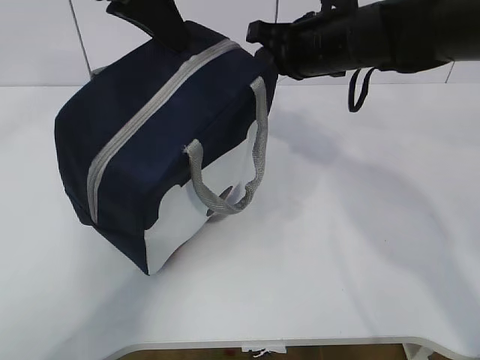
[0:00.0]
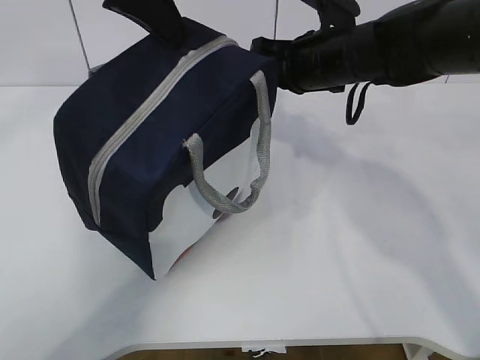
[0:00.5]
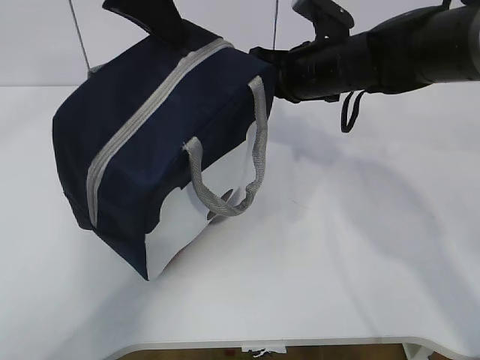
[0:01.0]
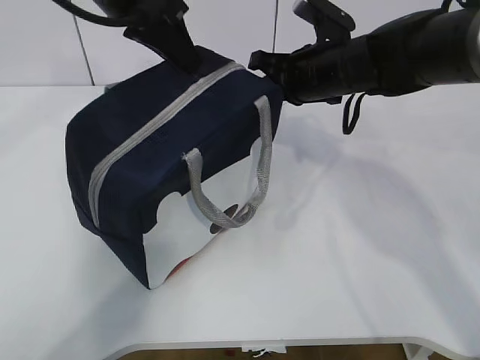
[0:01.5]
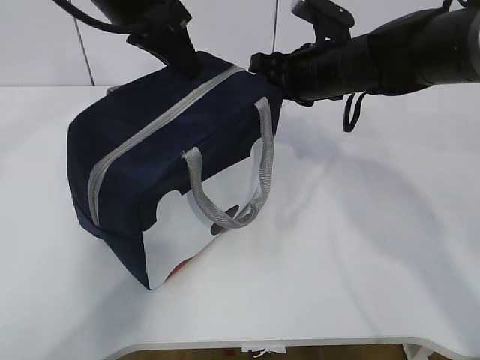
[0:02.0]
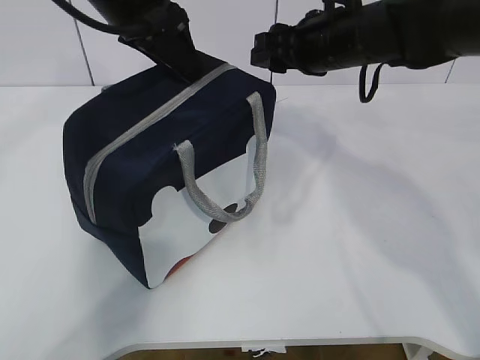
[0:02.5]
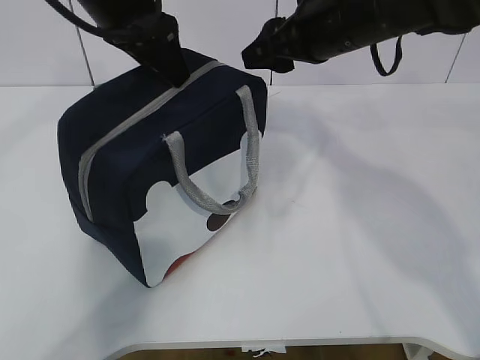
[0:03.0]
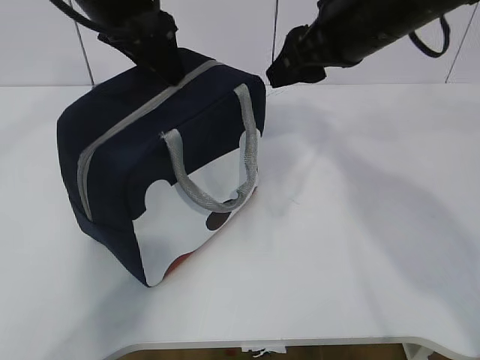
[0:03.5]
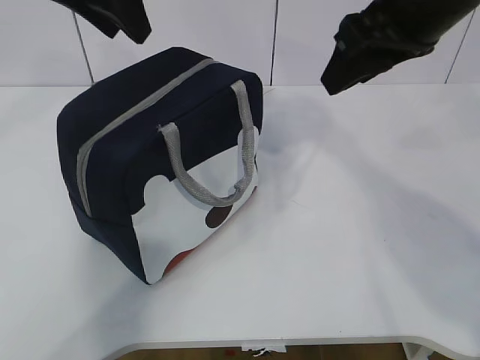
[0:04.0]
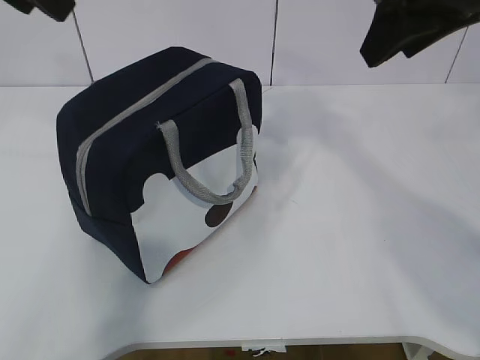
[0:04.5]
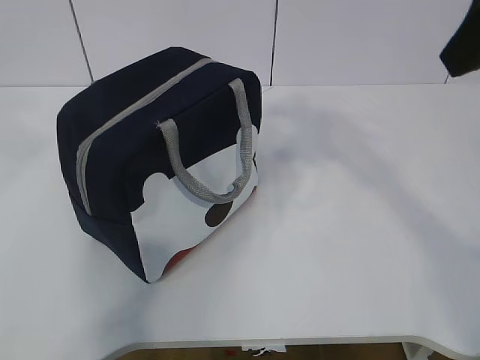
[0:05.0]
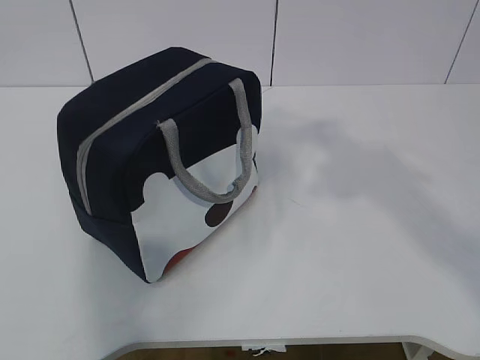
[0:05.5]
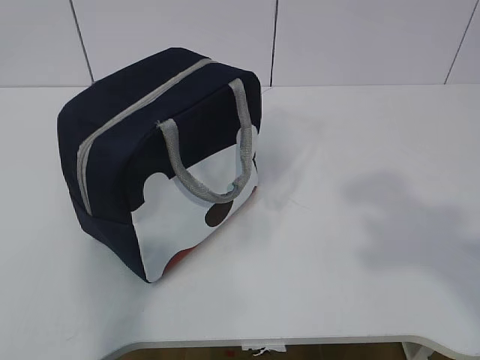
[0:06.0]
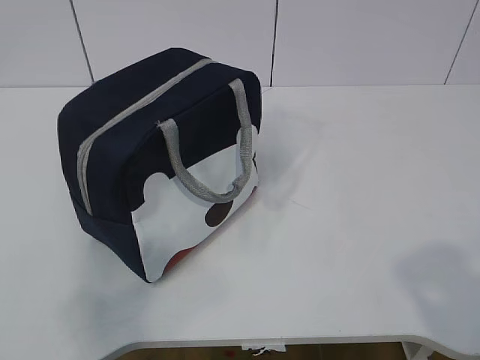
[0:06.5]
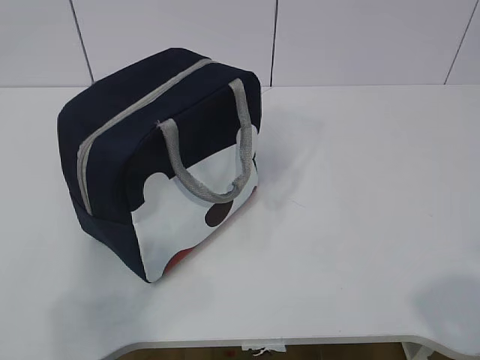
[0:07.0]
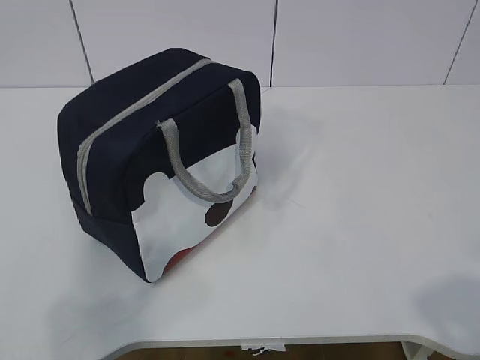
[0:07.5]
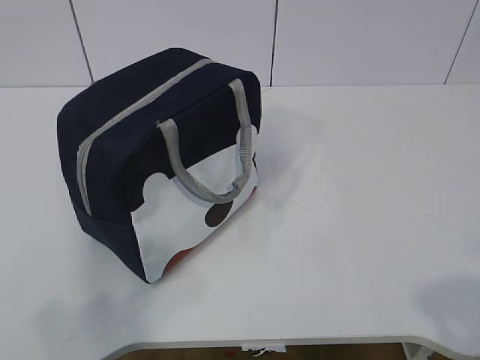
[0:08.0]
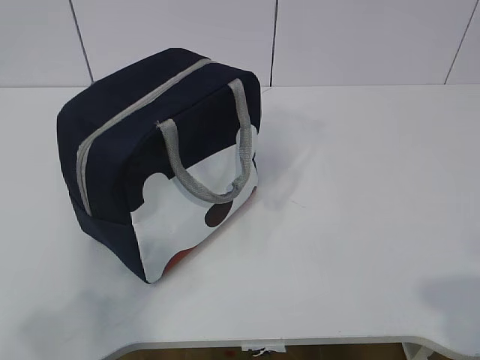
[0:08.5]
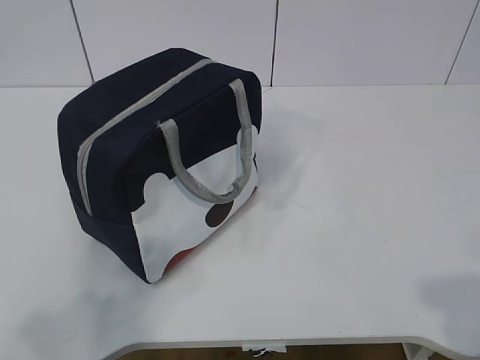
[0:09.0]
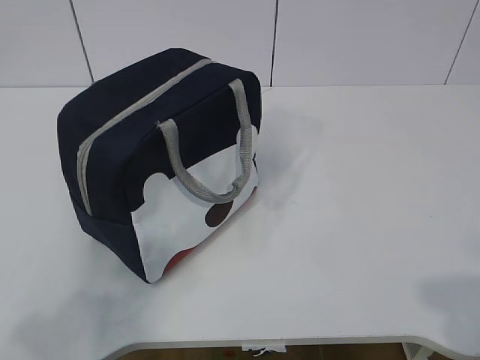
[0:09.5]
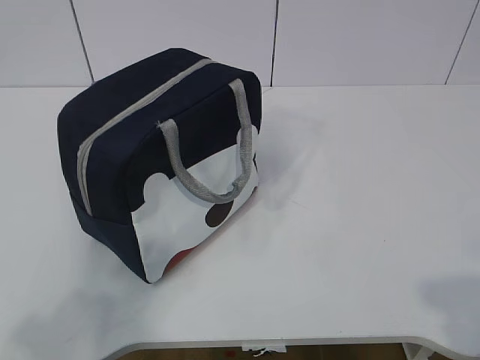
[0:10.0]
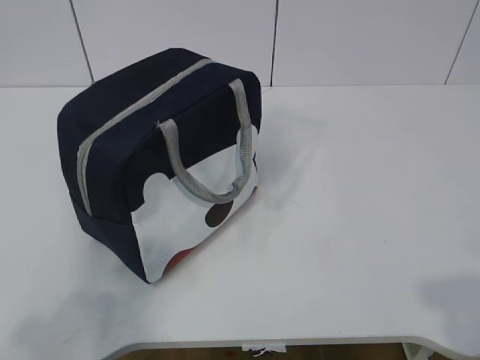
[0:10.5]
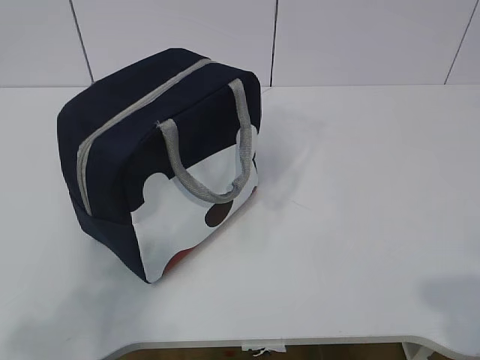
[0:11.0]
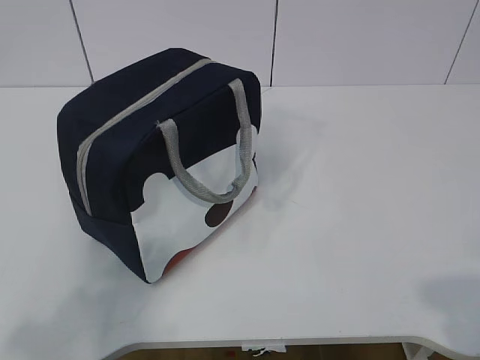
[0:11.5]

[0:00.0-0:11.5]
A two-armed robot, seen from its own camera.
0:00.0 to 0:02.0: The right gripper opens up.
0:02.0 to 0:04.0: The right gripper shifts about 15 cm upward and backward. The left gripper ends up roughly 5 cm from where it was, and opens its fingers.
0:04.0 to 0:06.0: The right gripper heads backward, covering approximately 30 cm. Meanwhile the left gripper moves backward and to the left, some 40 cm.
0:06.0 to 0:07.5: The right gripper moves downward, some 15 cm.

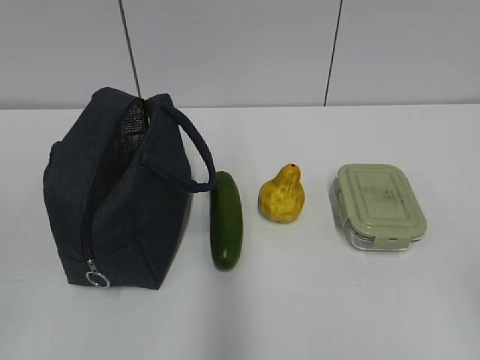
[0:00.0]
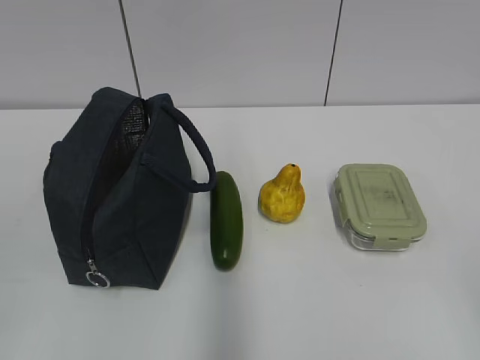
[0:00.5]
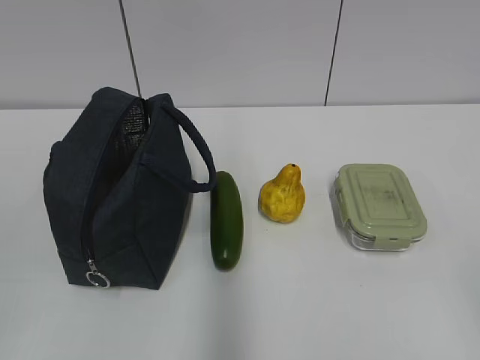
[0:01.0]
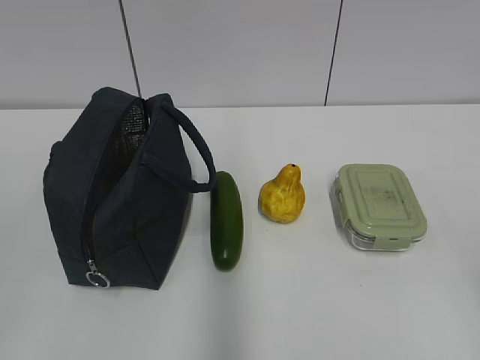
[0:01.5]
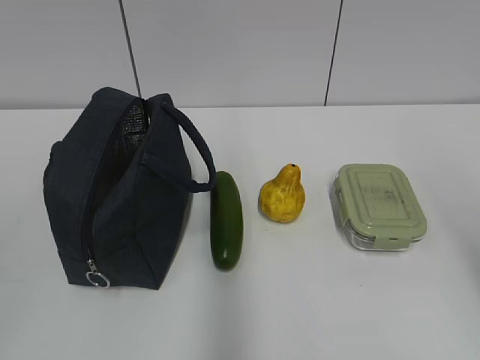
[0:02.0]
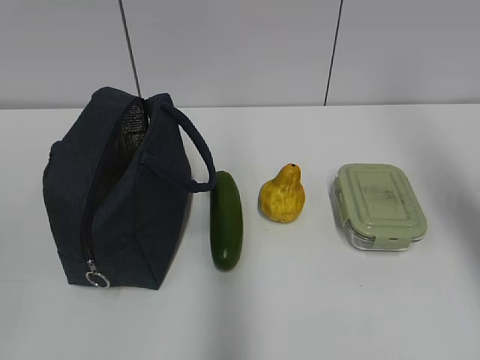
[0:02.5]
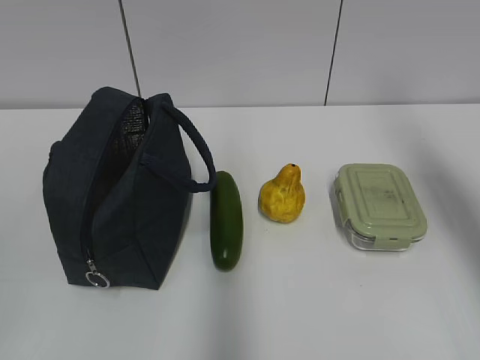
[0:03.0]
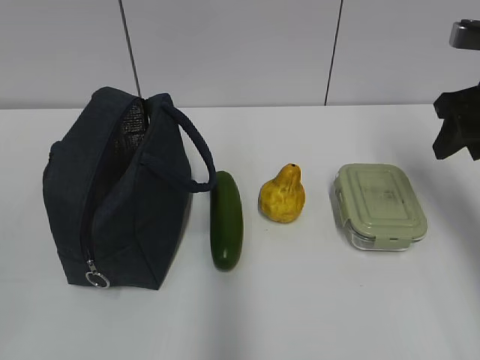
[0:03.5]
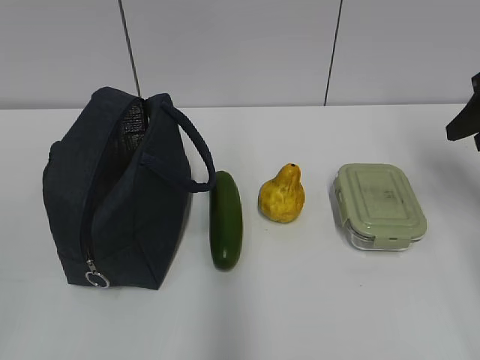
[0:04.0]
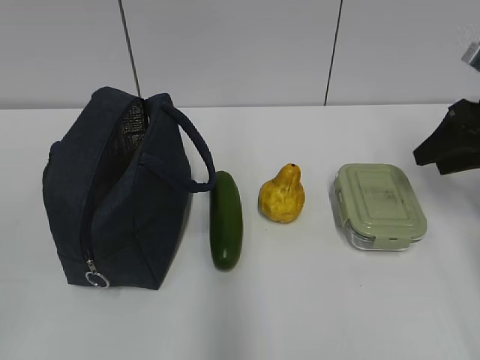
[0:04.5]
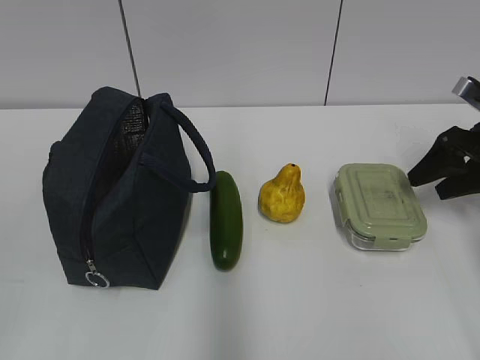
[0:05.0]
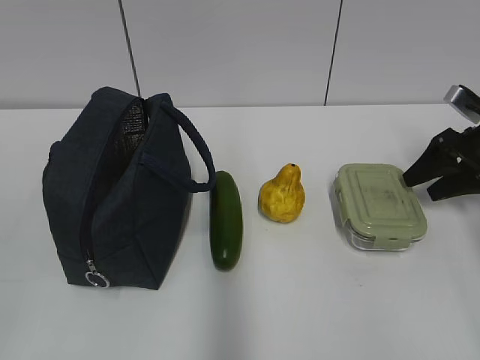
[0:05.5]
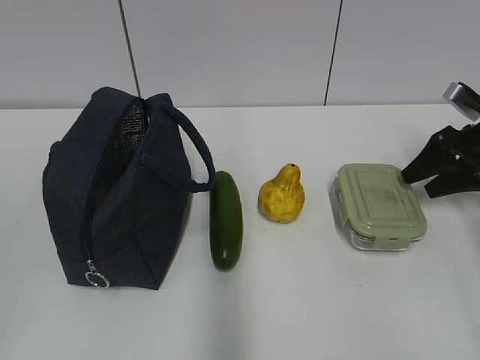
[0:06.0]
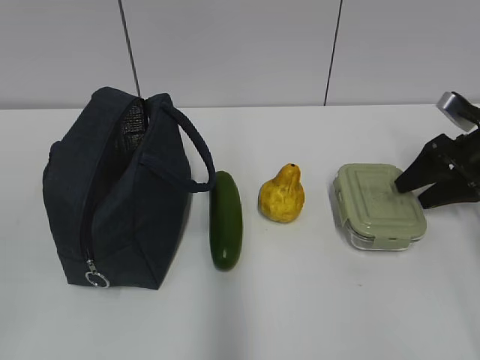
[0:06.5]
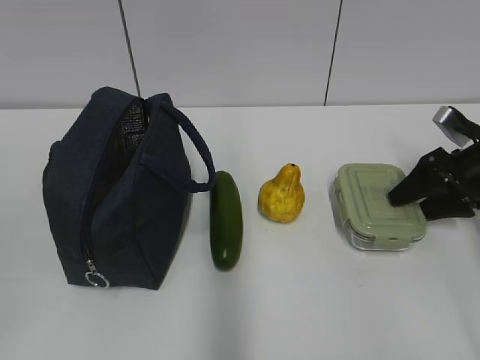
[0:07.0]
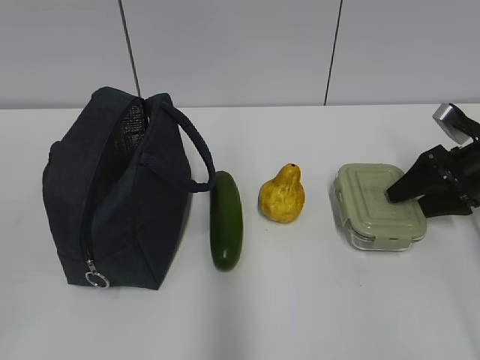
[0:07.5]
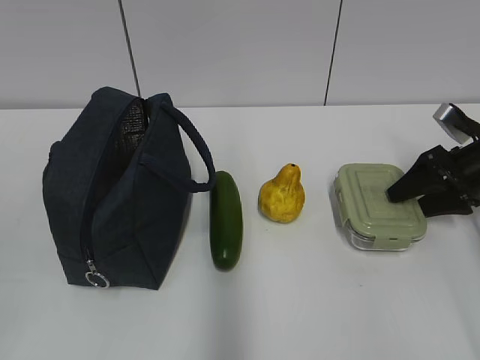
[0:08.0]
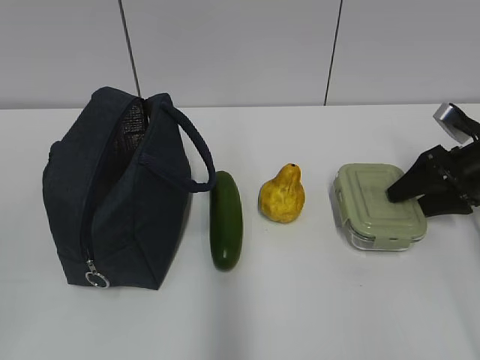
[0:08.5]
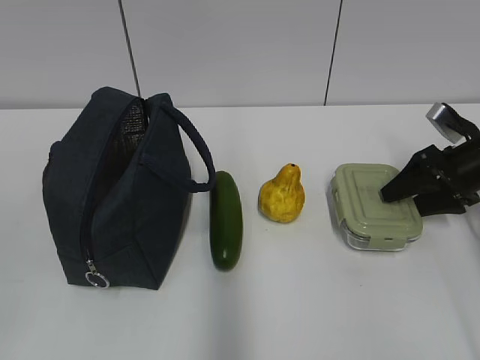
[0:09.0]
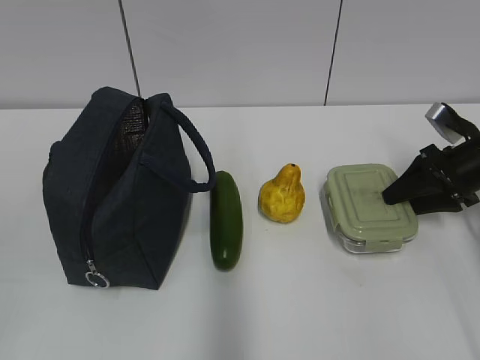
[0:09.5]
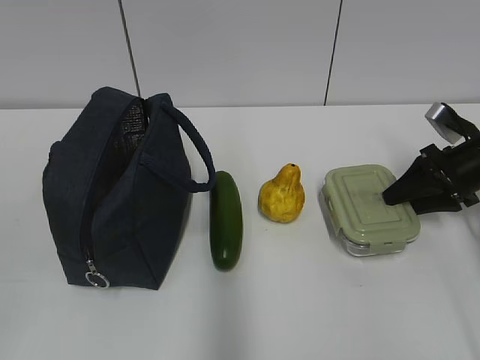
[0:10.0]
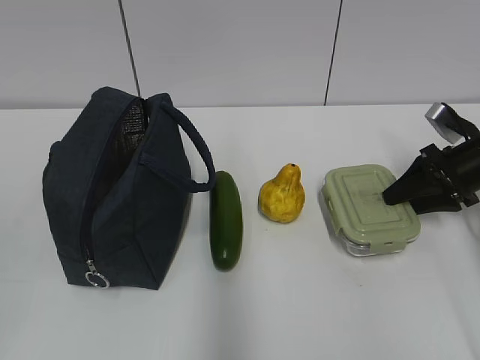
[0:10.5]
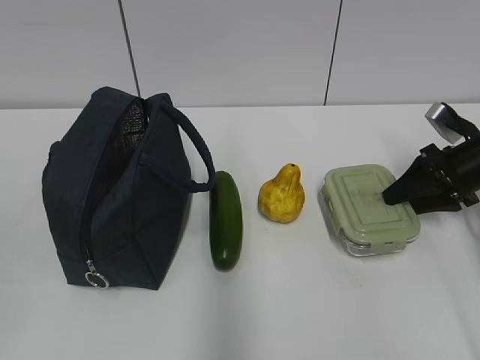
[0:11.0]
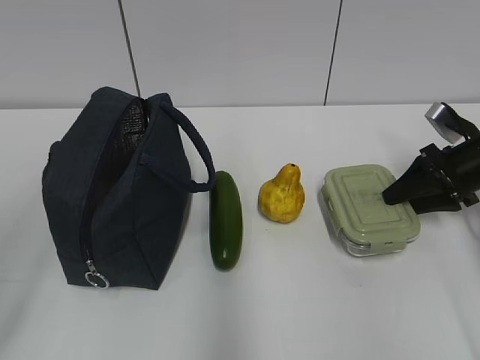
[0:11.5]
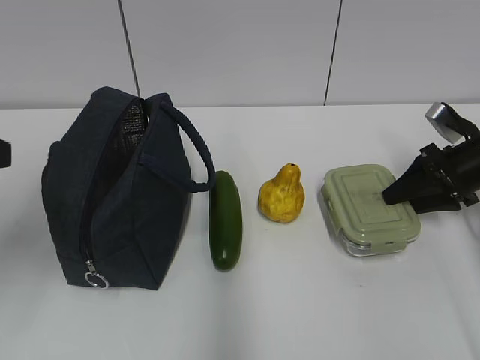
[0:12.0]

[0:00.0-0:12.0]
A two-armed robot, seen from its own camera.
Step, 0:00.0 to 0:11.0: Grab the lunch box with your right hand.
0:02.0 to 0:04.0: The right gripper travels forward by some 25 cm.
0:04.0 to 0:06.0: The right gripper shifts approximately 15 cm downward and forward.
0:06.0 to 0:08.0: The grippers make only small movements.
0:08.0 to 0:10.0: Both grippers stay about where they are.
0:10.0 to 0:12.0: The left gripper is displaced forward by roughly 20 cm.

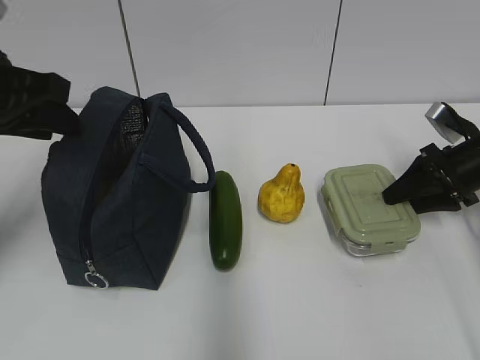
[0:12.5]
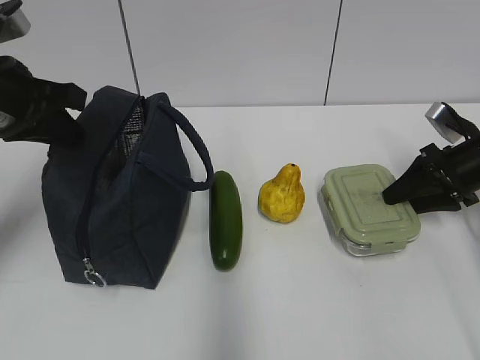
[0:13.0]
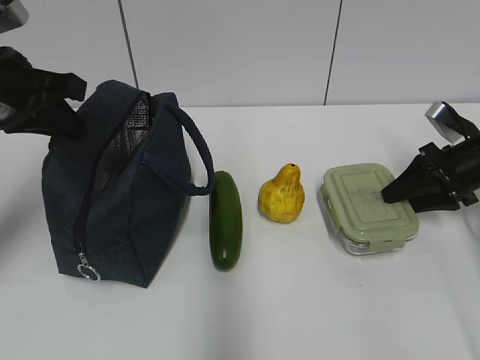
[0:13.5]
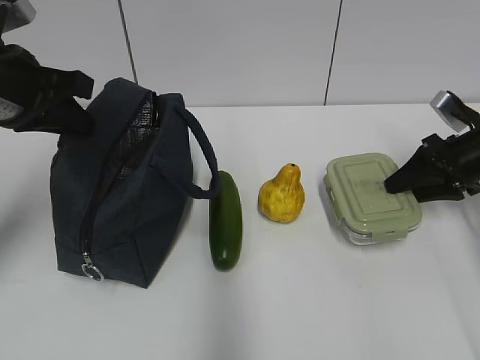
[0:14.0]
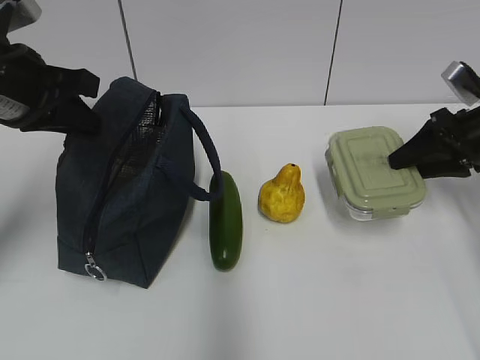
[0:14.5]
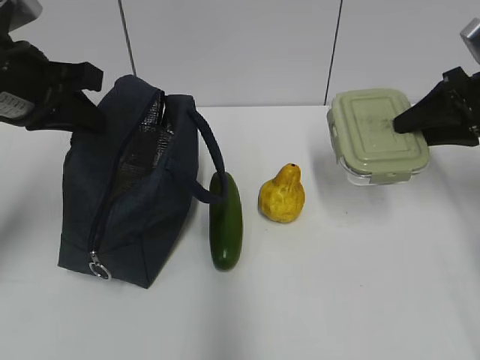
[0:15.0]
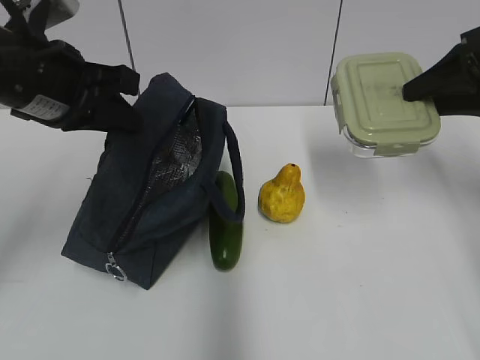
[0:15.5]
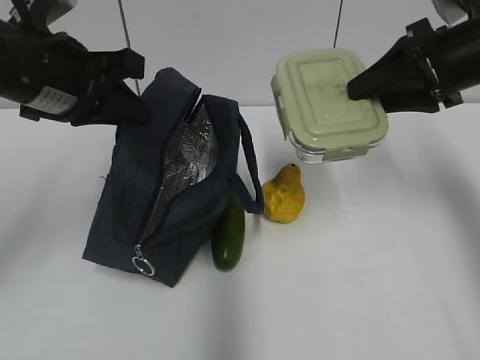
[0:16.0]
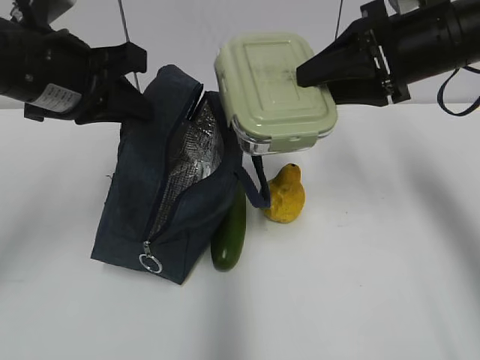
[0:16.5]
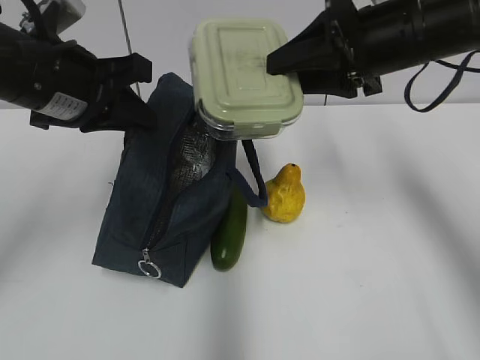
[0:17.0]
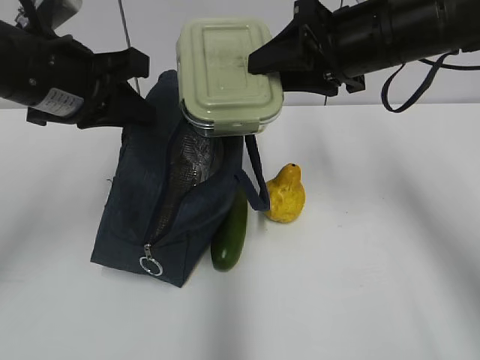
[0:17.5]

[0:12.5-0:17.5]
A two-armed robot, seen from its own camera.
0:12.5 to 0:15.0: The left gripper closes. Meanwhile the right gripper shifts about 10 cm upward.
0:15.0 to 0:17.5: The right gripper is displaced to the left by roughly 20 cm.
